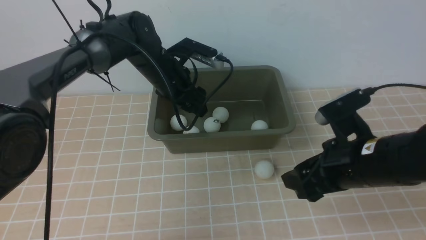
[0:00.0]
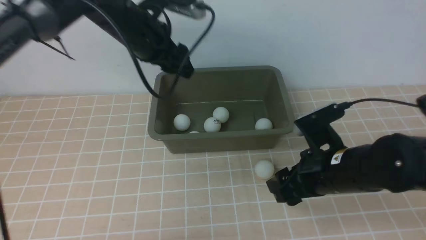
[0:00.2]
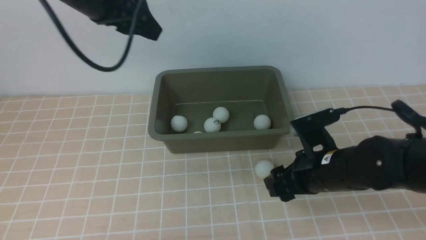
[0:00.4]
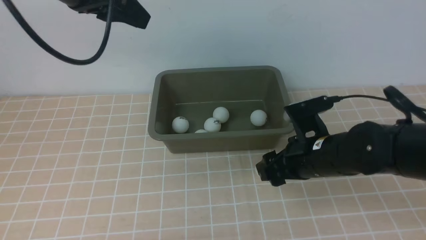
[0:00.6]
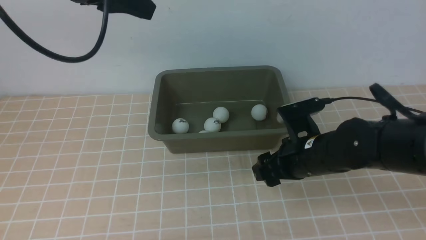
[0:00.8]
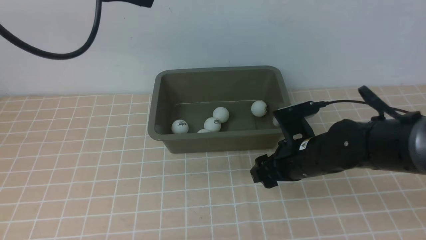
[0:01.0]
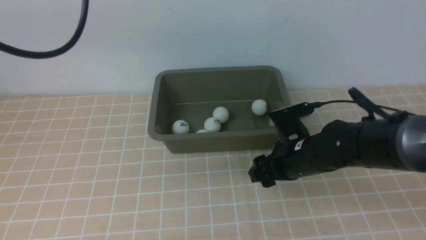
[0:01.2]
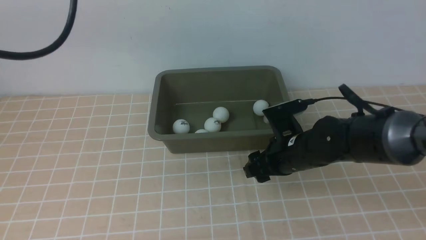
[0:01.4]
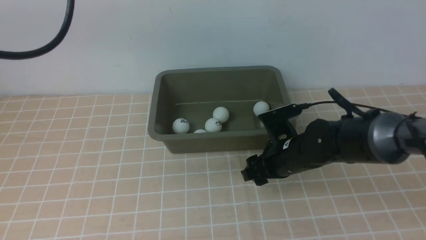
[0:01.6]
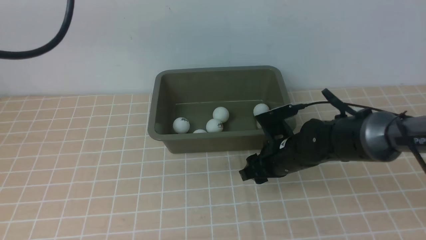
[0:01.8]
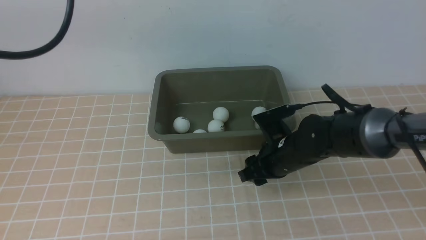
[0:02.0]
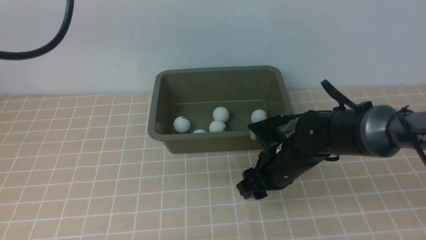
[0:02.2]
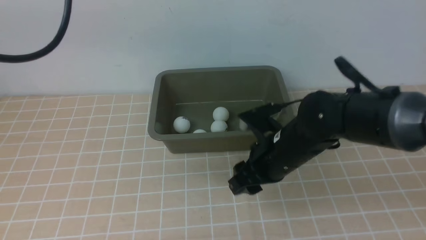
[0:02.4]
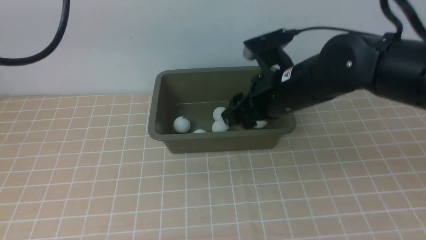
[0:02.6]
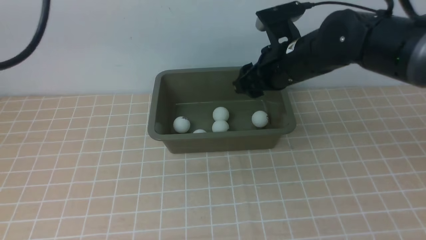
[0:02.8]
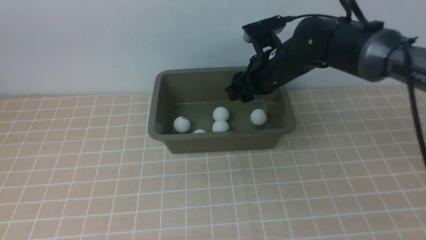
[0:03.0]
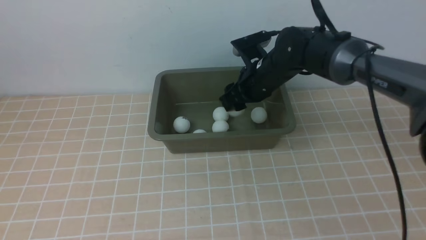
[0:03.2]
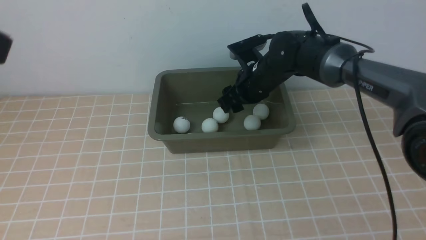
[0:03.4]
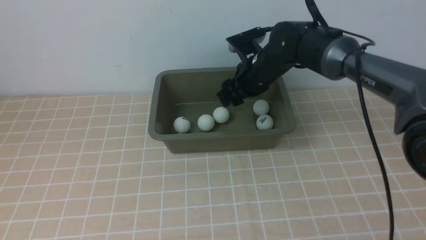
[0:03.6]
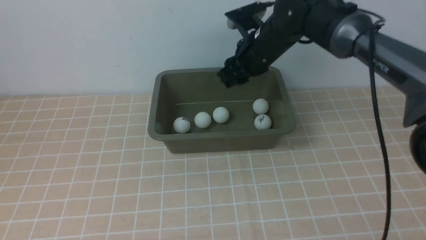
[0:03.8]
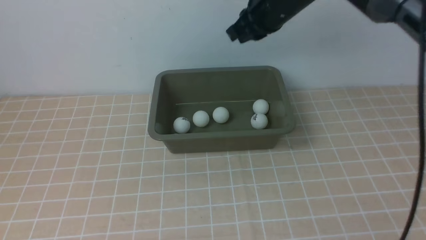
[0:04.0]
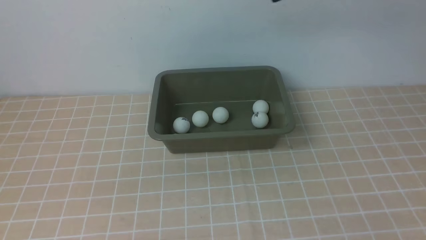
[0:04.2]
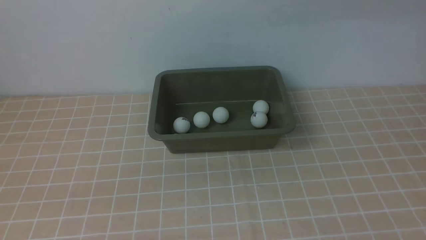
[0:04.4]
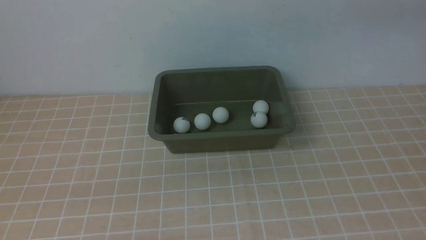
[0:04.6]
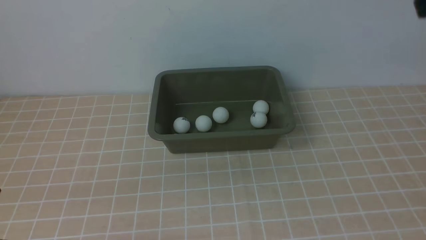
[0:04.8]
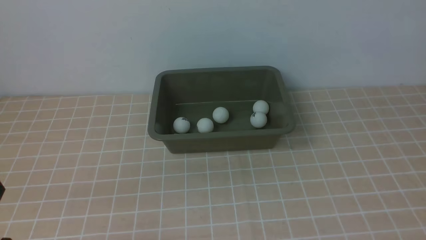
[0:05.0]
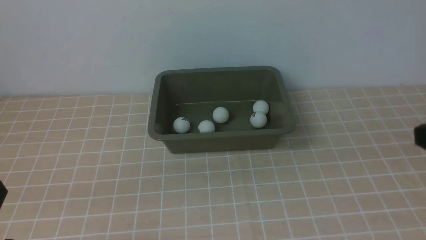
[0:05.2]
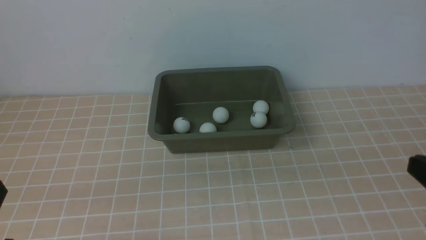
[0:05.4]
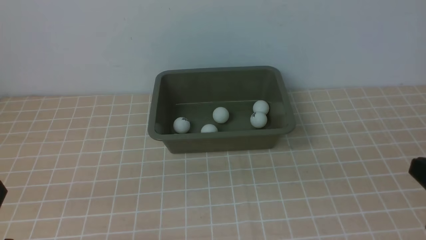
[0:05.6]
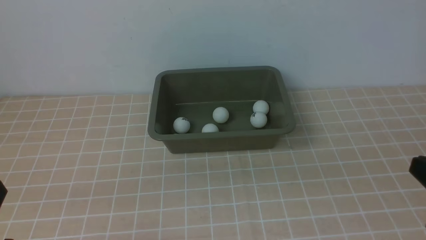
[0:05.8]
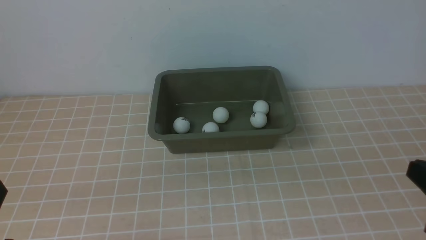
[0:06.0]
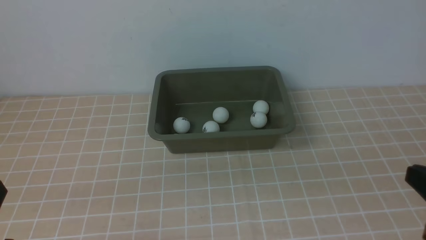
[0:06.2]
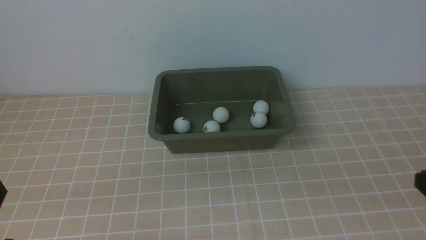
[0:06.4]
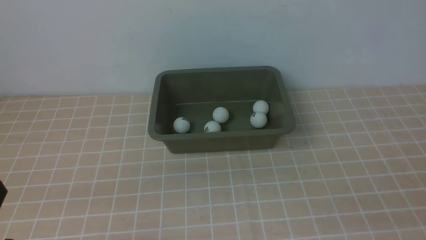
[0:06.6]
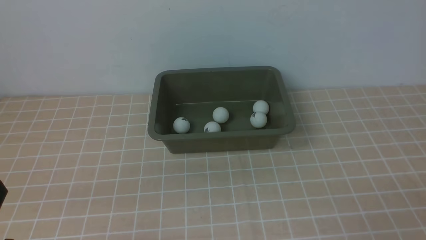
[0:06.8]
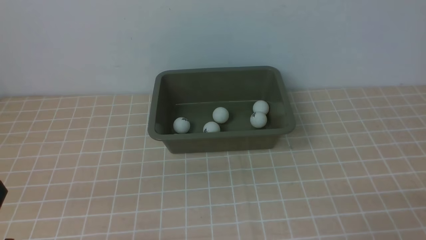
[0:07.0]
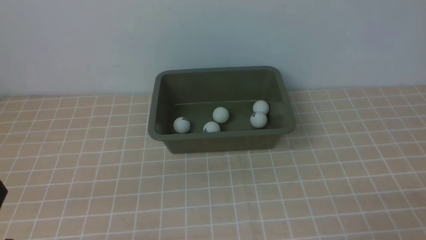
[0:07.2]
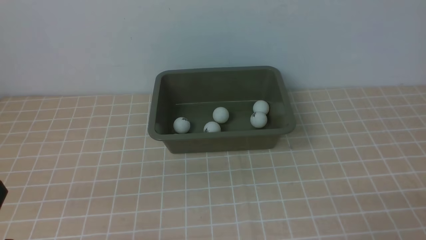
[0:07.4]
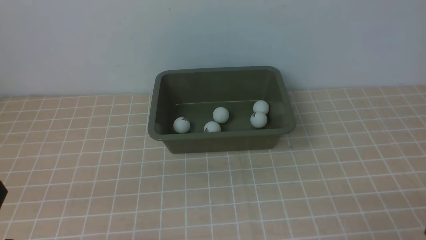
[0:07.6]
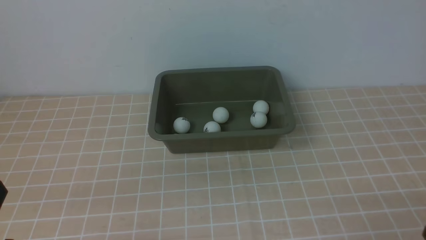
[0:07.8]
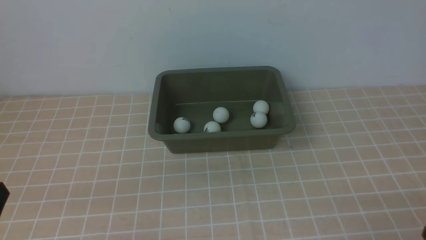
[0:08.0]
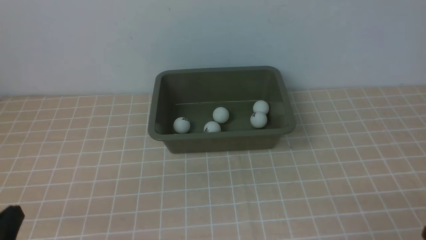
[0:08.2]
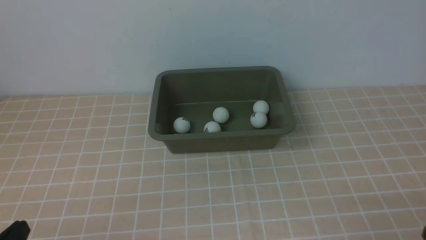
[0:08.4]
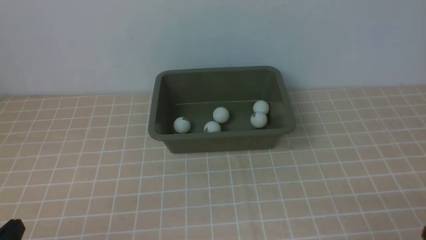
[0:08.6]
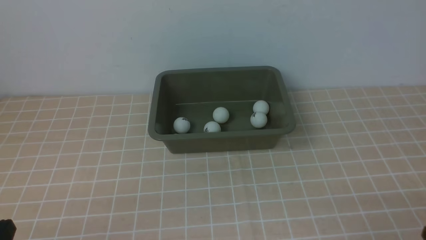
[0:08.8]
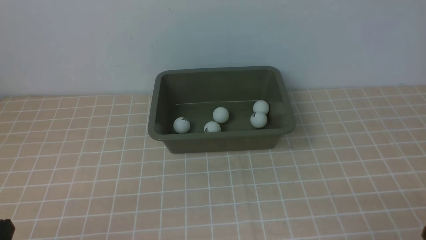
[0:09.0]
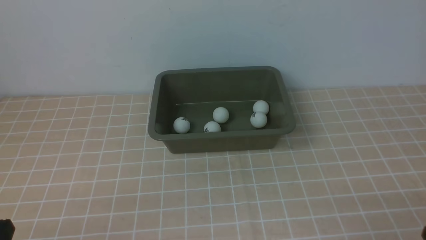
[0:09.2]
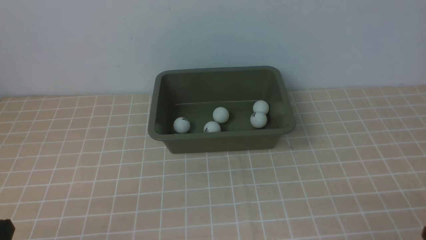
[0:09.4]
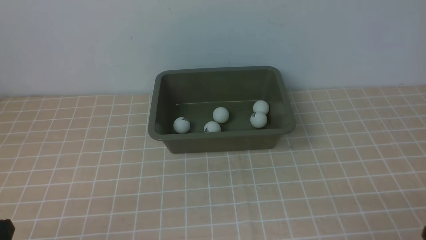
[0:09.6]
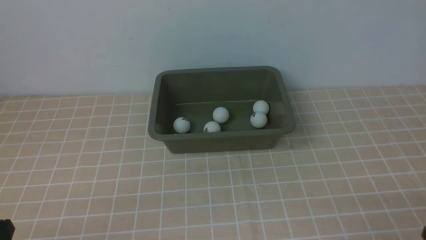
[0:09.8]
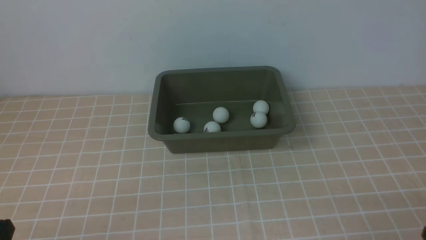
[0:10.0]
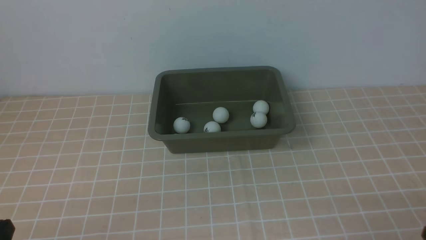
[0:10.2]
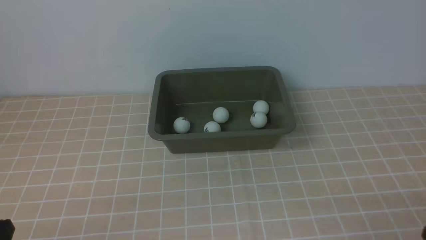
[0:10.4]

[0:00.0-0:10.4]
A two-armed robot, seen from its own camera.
Step, 0:00.0 to 0:02.2: use the right arm to clamp the table tennis ball closest to it.
Step, 0:02.4 to 0:03.4: use the right arm to put the table tennis ball into the box.
0:00.0 to 0:01.4: The right gripper goes about 10 cm forward, downward and to the left, while the left gripper heads upward and backward, covering roughly 25 cm.
0:01.4 to 0:03.0: The left gripper moves backward, approximately 10 cm. Meanwhile the right gripper goes some 15 cm forward and upward.
0:03.0 to 0:04.4: The left gripper shifts about 30 cm downward and backward, and closes. The right gripper shifts about 25 cm upward and to the right, and closes up.
0:04.4 to 0:06.0: The right gripper travels backward and downward by about 30 cm.
0:09.0 to 0:10.4: Neither gripper changes place.
